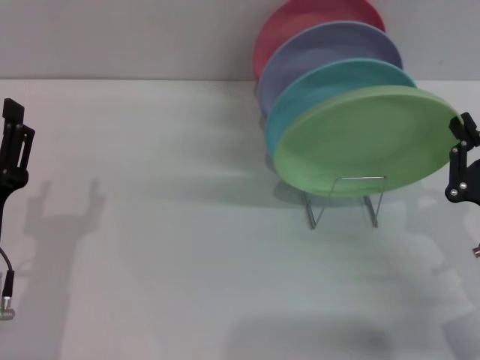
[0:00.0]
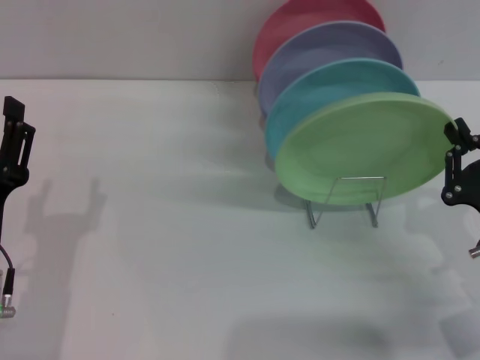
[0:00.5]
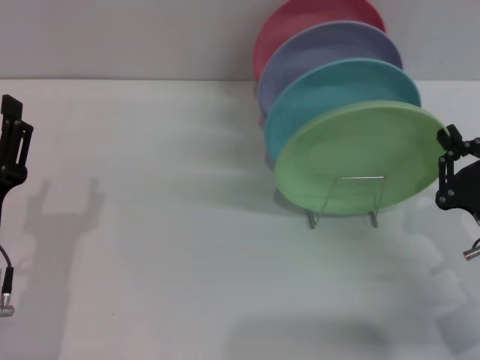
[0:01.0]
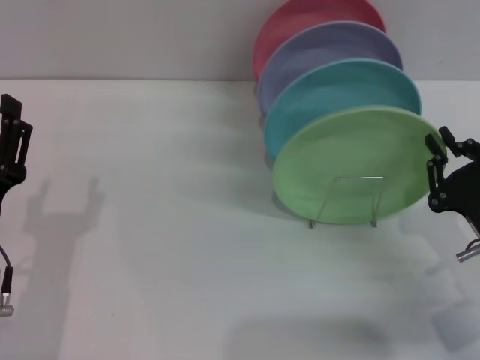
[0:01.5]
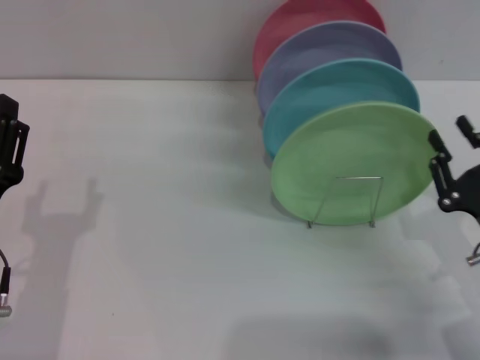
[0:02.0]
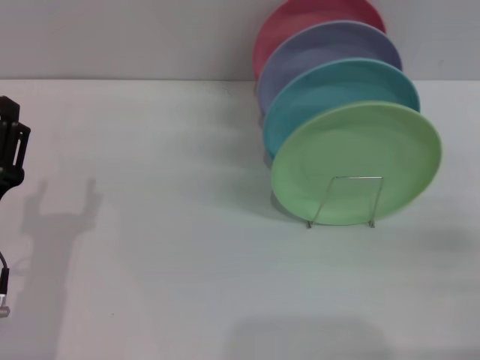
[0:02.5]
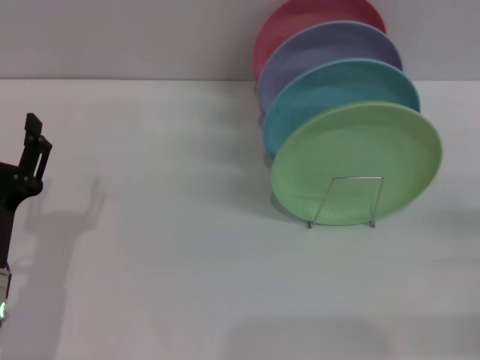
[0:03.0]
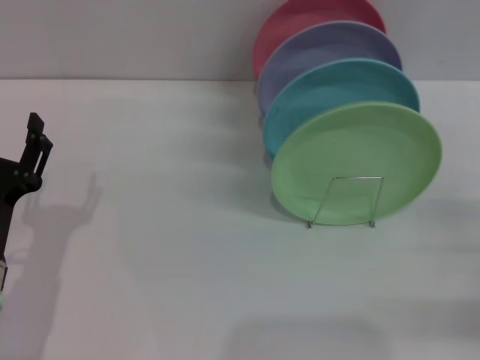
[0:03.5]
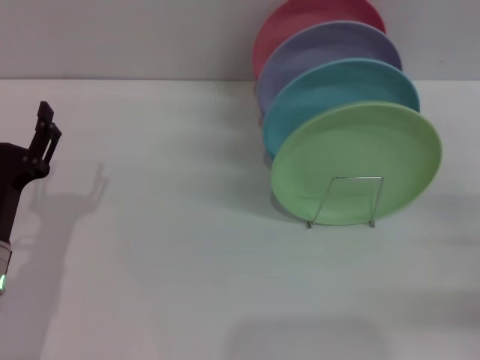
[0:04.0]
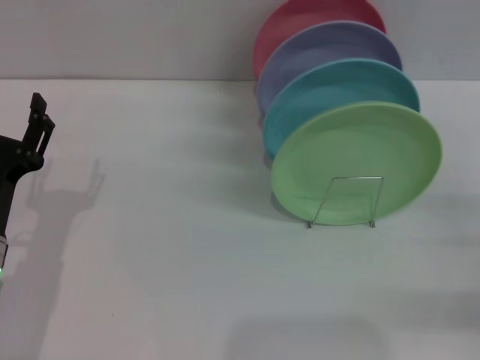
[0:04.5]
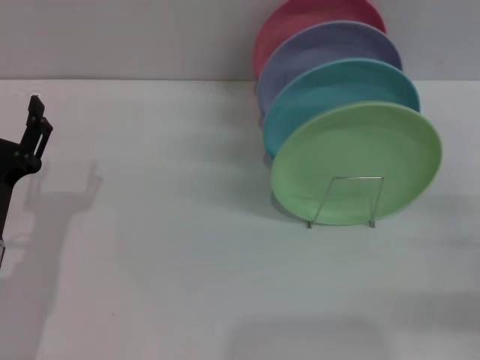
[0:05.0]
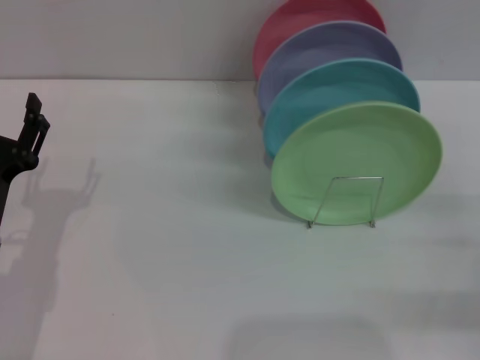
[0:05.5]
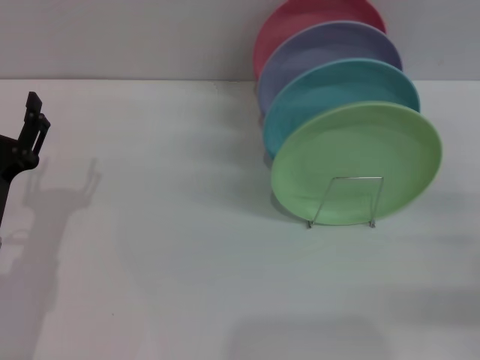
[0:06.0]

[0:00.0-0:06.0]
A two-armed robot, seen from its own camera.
Task of the whole recording: Grip the plate with one hand, pass it to the other, then set it on the shelf.
Step, 0:00.0 to 0:02.0: Place the plate on the shelf with the right gripper.
0:00.0 to 0:02.0: The grippers move only a little.
0:02.0 to 0:04.0: The right gripper heads to the right, covering some 10 cm, and opens.
0:04.0 to 0:06.0: The two grippers keep their place.

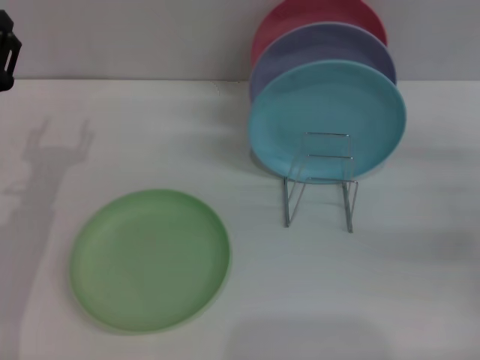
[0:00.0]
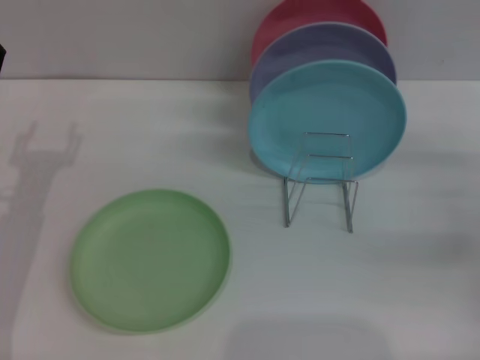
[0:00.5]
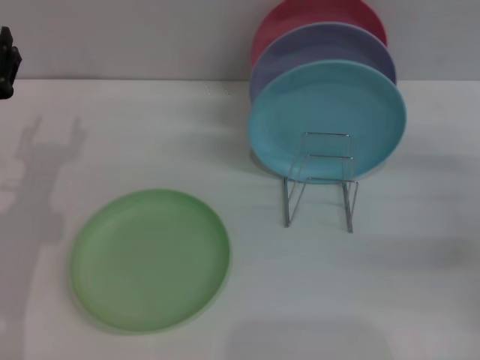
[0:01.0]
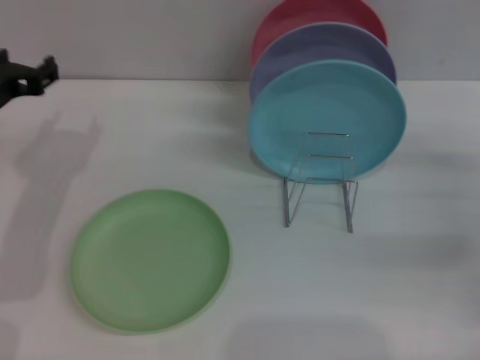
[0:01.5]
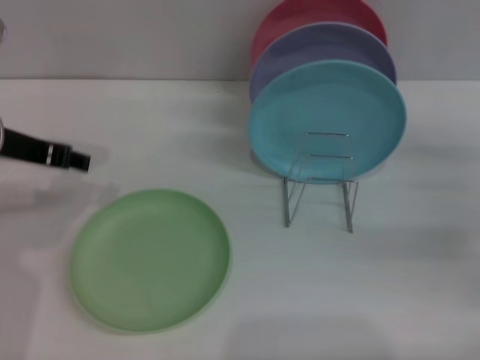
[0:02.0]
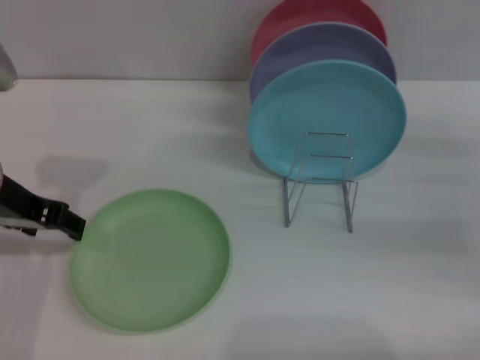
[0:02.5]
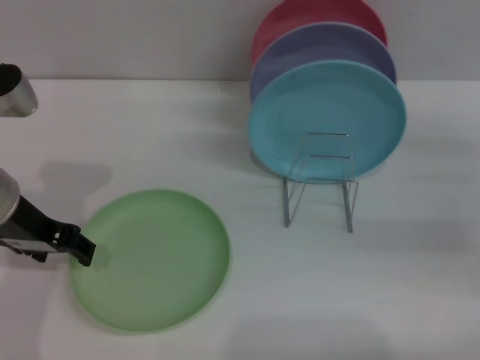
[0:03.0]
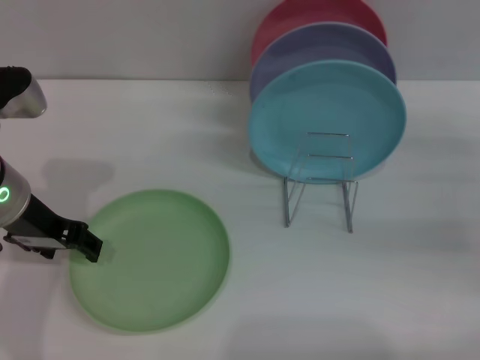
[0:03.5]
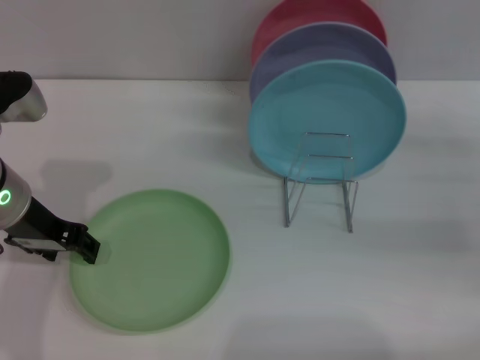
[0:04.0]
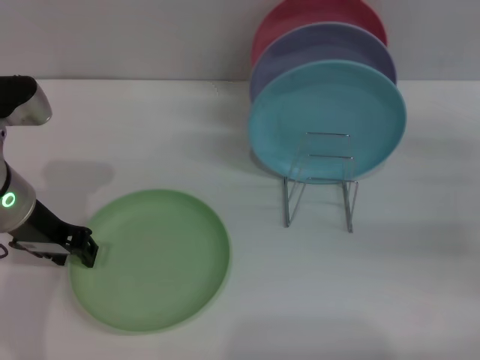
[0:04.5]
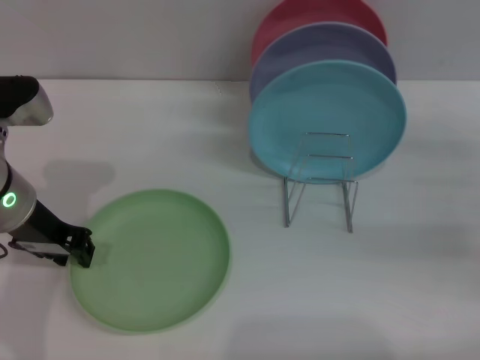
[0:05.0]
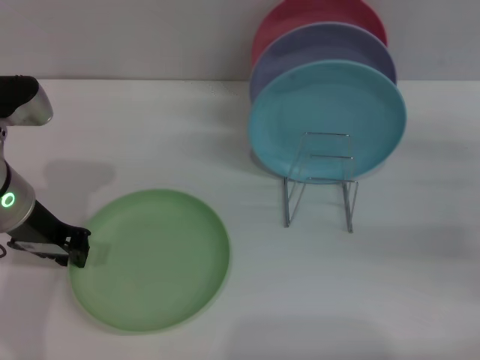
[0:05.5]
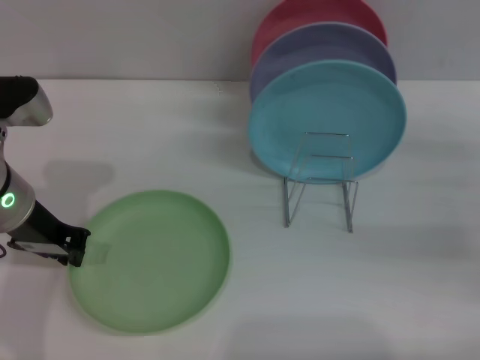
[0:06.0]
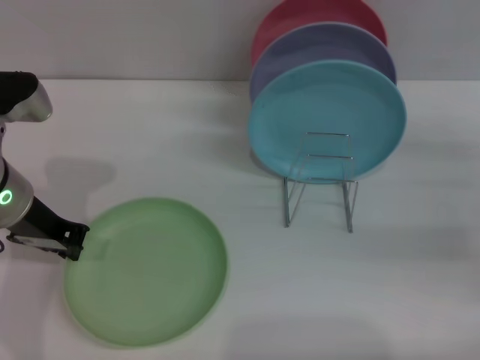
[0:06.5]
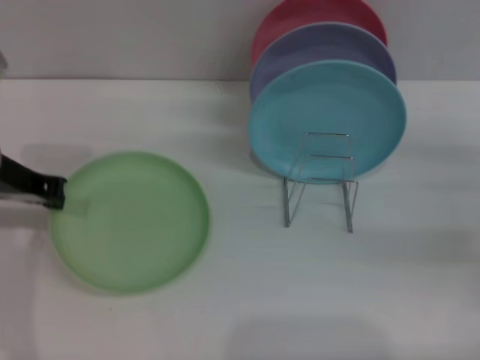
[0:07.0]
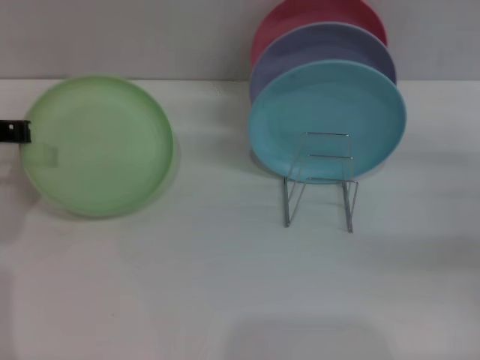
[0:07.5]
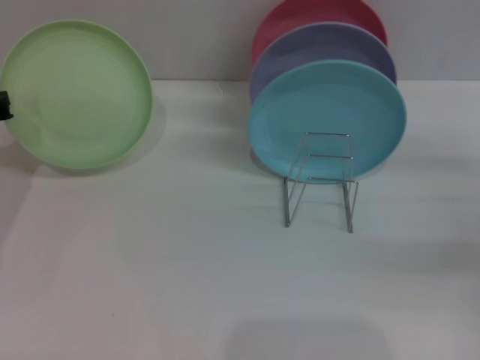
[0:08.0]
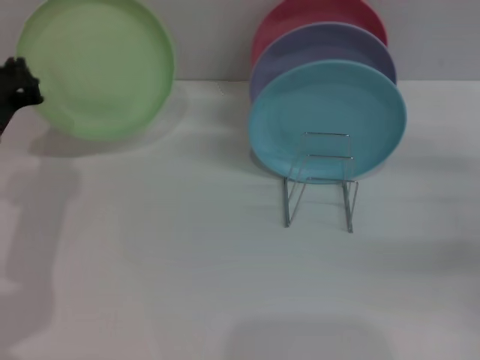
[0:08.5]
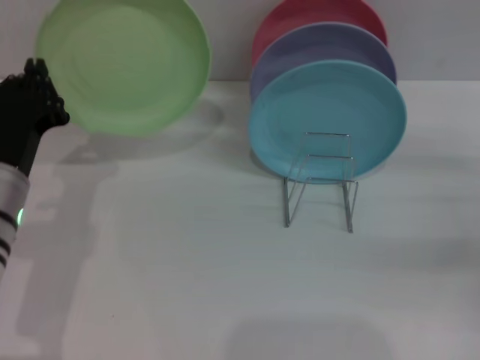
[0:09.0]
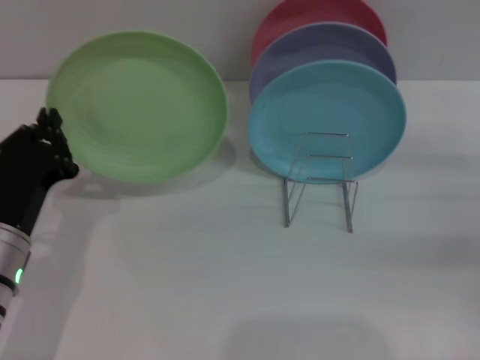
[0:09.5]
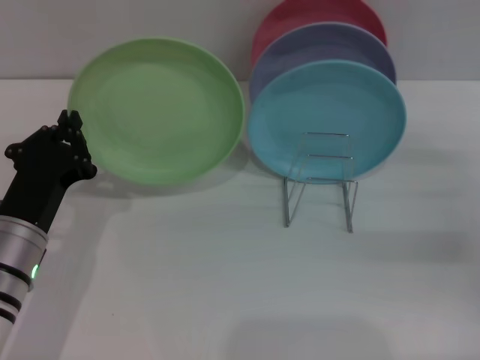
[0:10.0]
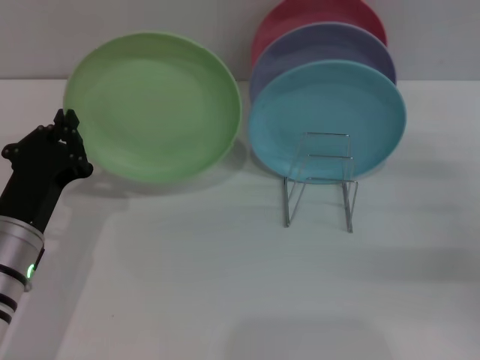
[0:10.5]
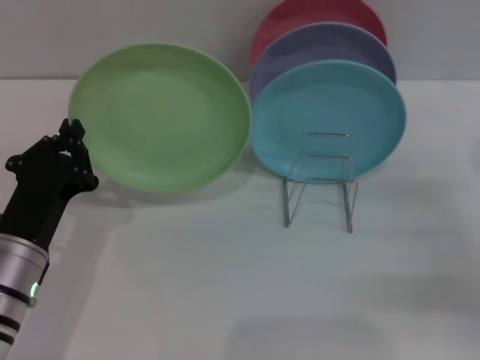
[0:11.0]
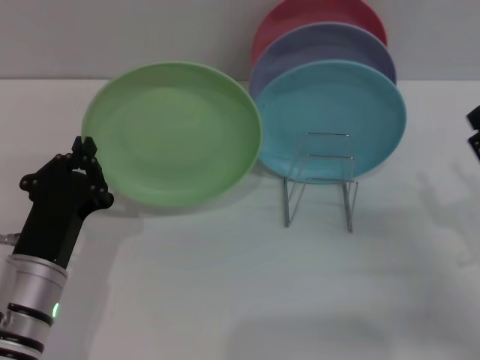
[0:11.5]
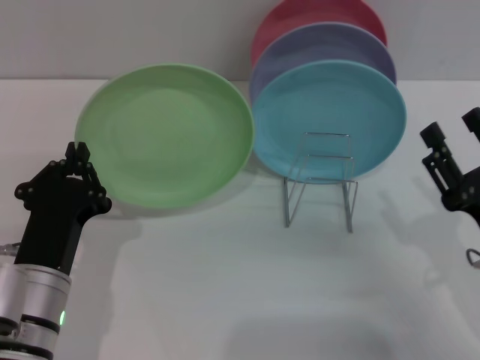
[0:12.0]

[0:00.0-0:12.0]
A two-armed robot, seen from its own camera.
Task of the whole recording: Grip the plate with one hand, pass it to the other, then set it on the shelf.
Step, 0:00.0 to 0:07.5: Pick up the plate with the left gripper.
0:00.0 to 0:02.0: The left gripper shifts roughly 10 cm upward.
0:04.0 to 0:06.0: The left gripper closes.
0:06.0 to 0:08.0: The left gripper goes some 10 cm to the left.
0:08.0 to 0:10.0: The left gripper shifts approximately 15 cm backward, to the right and downward.
0:10.0 to 0:12.0: The right gripper travels to the left and backward by roughly 15 cm. Meanwhile the left gripper moves roughly 5 cm.

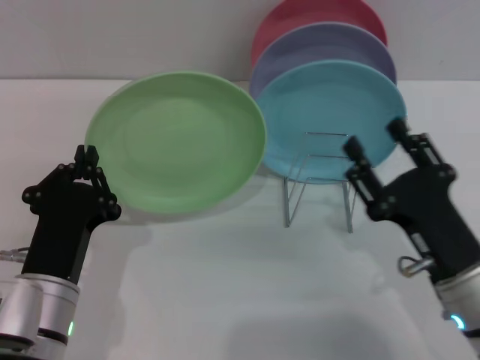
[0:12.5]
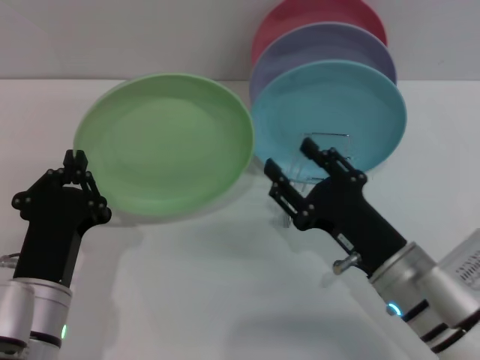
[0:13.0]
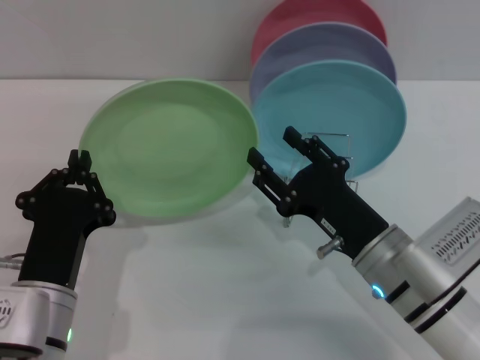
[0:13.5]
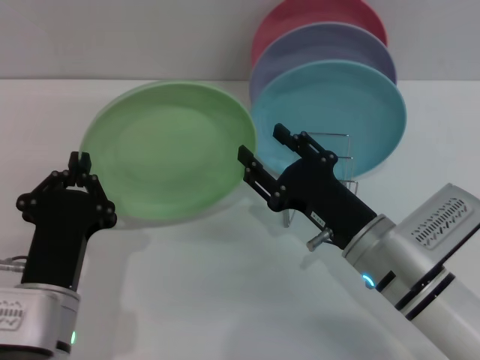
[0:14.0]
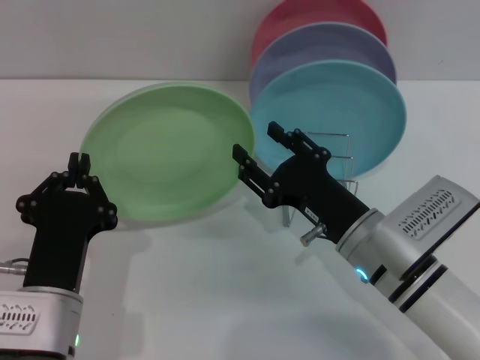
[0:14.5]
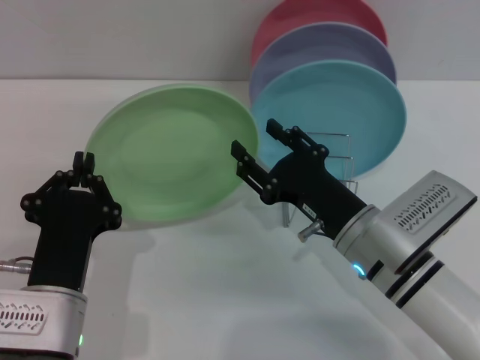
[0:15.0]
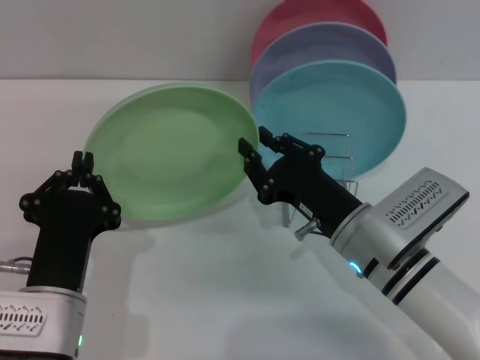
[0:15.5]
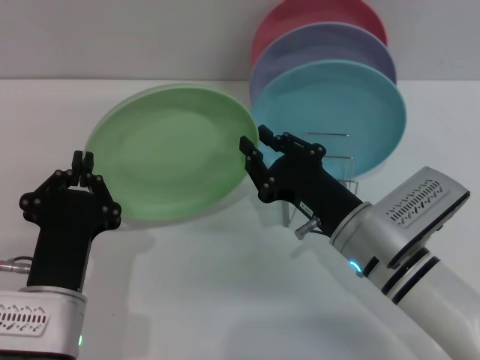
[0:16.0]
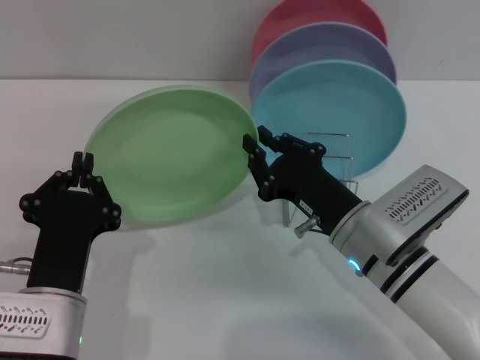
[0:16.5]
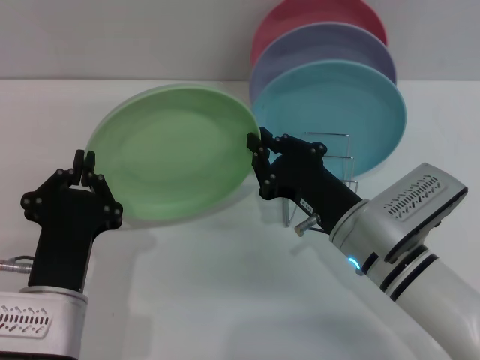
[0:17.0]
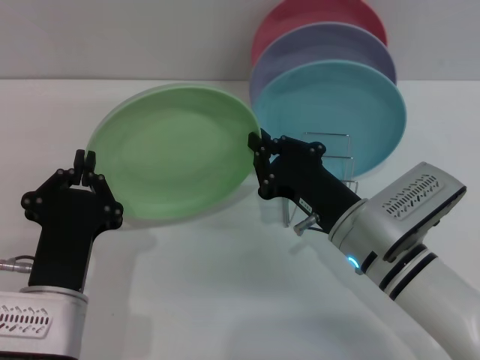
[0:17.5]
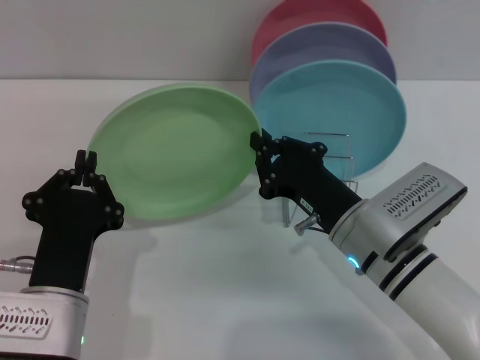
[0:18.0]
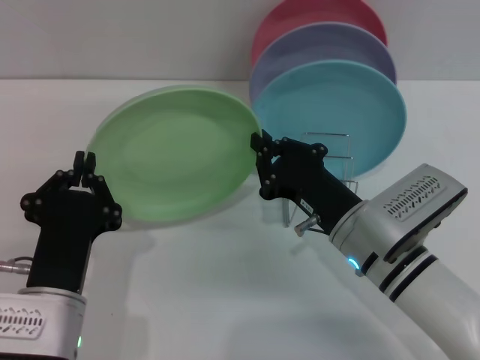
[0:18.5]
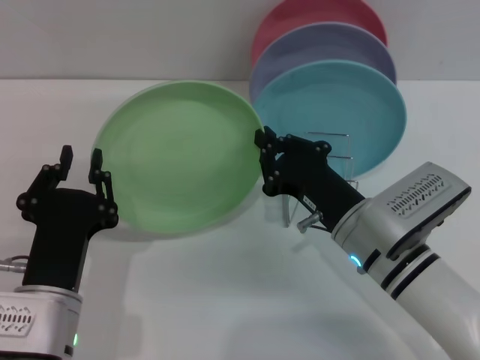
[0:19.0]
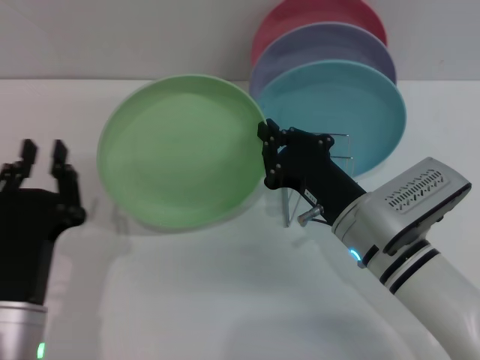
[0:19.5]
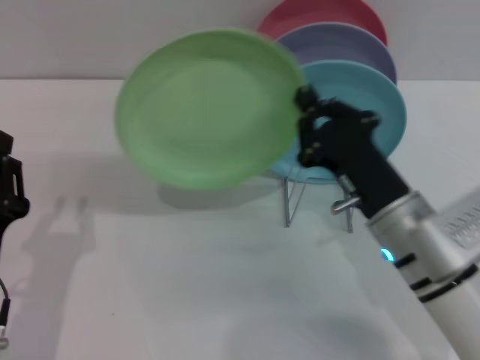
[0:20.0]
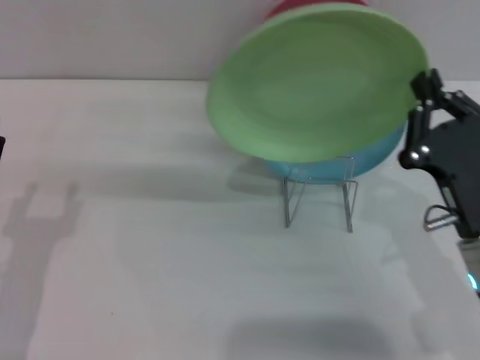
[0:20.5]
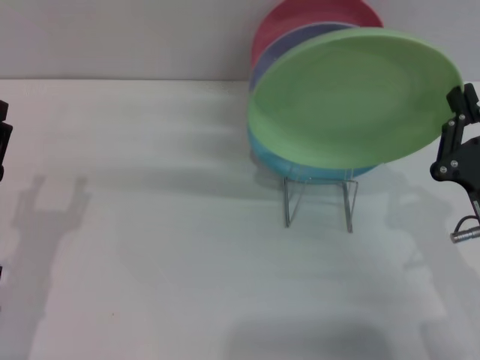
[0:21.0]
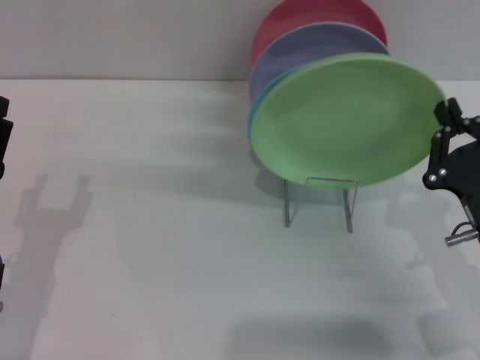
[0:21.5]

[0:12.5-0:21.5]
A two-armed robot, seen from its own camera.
Task of the whole recording: Grip the plate with one hand, pass it to the other, then set it on the shelf.
Step, 0:12.5 to 0:19.0: Pass the plate from the left gripper to the right gripper.
0:12.5 to 0:14.5: The right gripper travels to the left and forward by about 10 cm.
0:14.5 to 0:17.0: The right gripper closes up.
0:17.0 to 0:19.5: The grippers move only a little.
0:19.5 to 0:21.5: The left gripper is displaced to the left by roughly 5 cm, and opens its fingers. Meanwhile the right gripper heads to the right and backward, covering roughly 10 cm.
